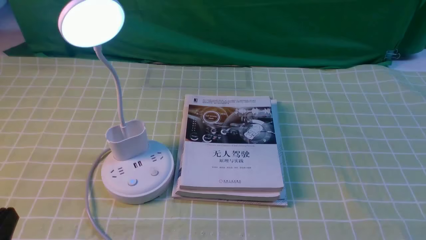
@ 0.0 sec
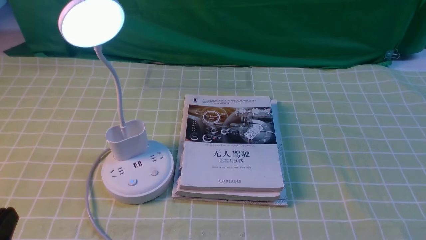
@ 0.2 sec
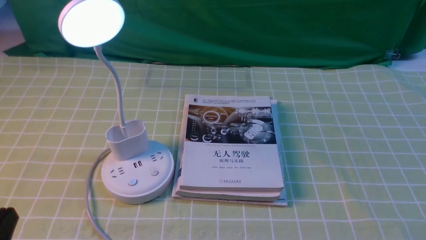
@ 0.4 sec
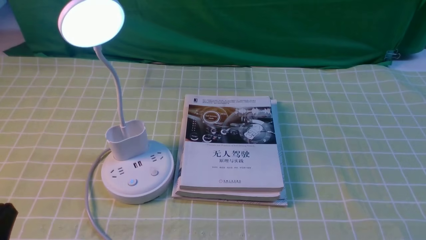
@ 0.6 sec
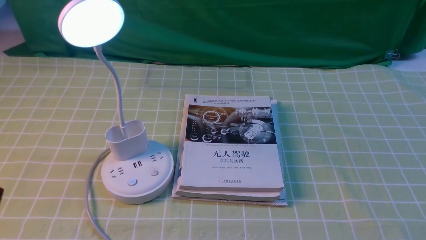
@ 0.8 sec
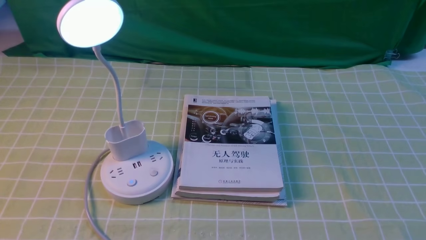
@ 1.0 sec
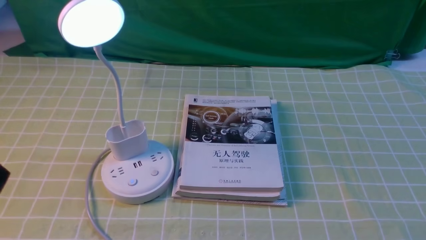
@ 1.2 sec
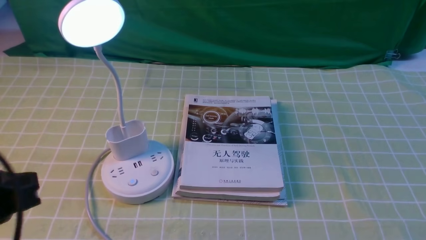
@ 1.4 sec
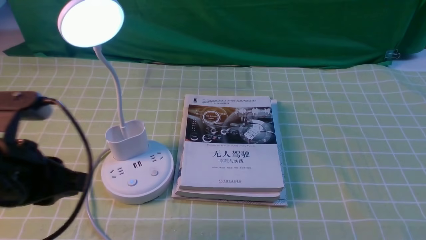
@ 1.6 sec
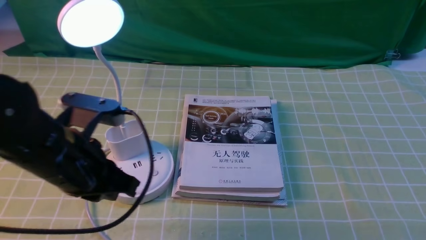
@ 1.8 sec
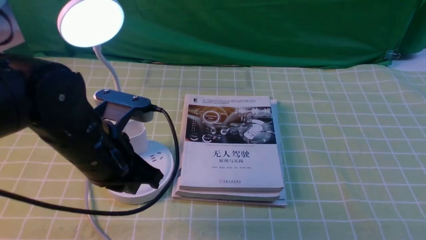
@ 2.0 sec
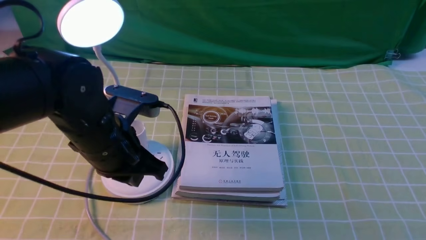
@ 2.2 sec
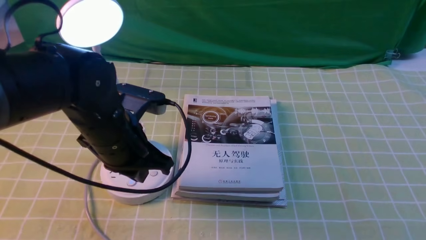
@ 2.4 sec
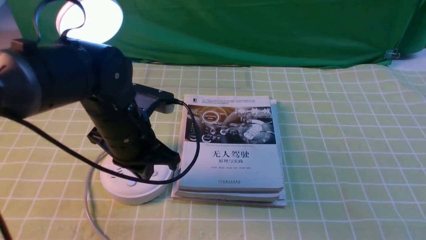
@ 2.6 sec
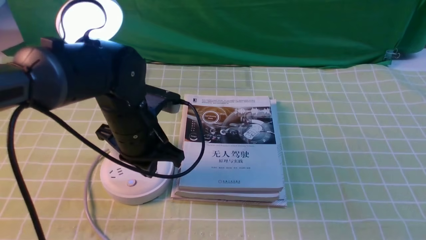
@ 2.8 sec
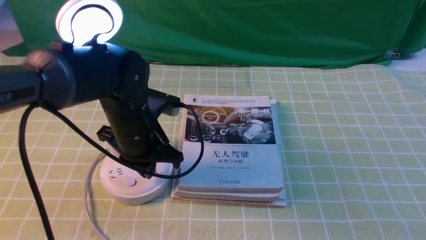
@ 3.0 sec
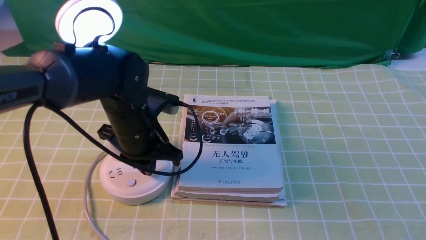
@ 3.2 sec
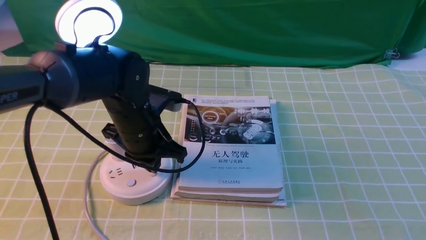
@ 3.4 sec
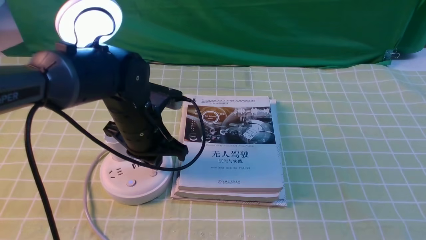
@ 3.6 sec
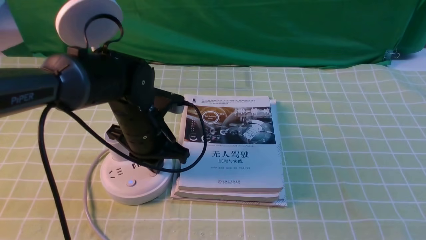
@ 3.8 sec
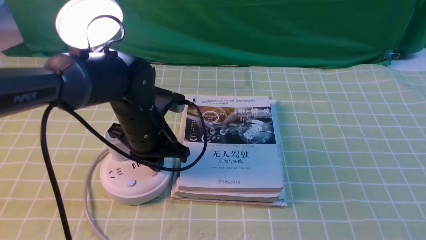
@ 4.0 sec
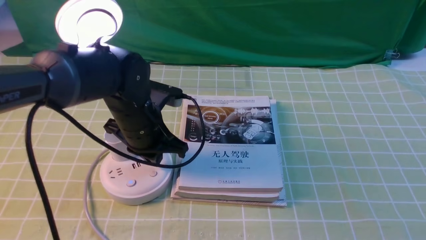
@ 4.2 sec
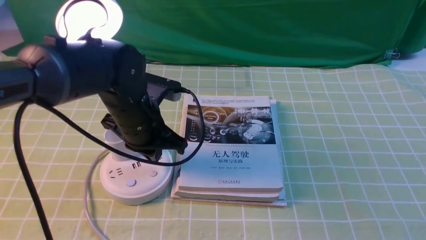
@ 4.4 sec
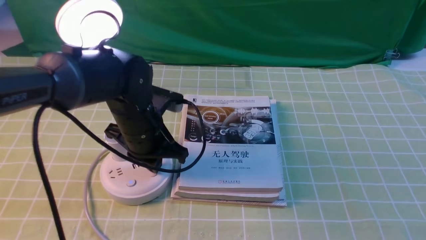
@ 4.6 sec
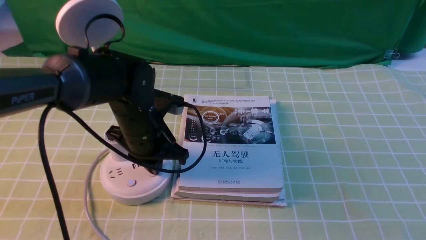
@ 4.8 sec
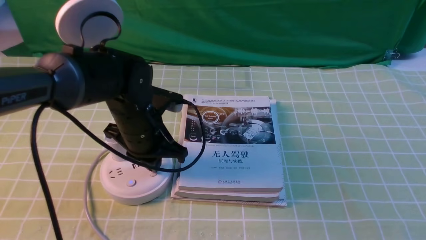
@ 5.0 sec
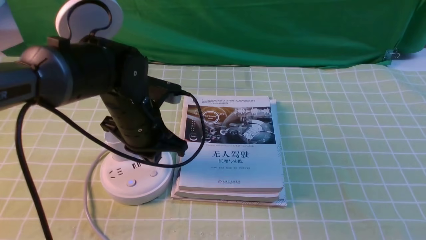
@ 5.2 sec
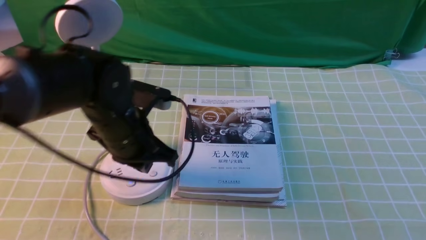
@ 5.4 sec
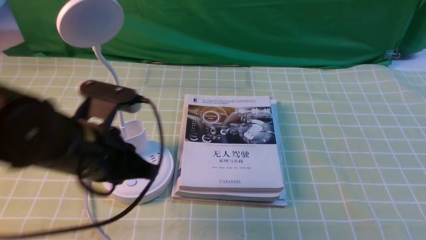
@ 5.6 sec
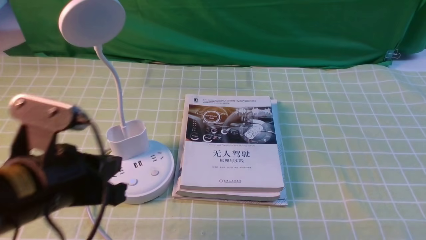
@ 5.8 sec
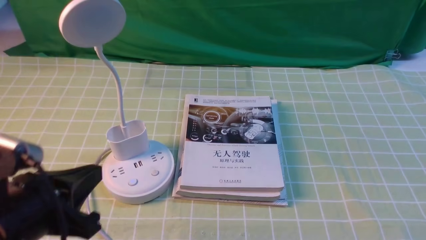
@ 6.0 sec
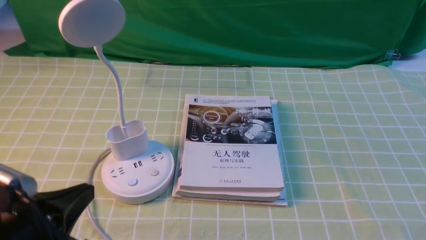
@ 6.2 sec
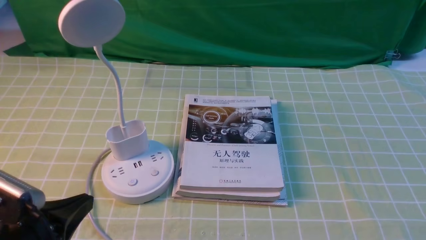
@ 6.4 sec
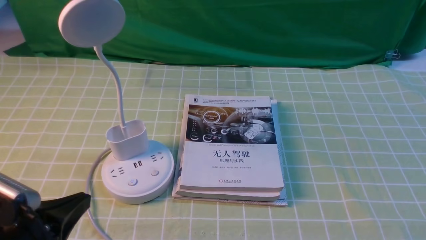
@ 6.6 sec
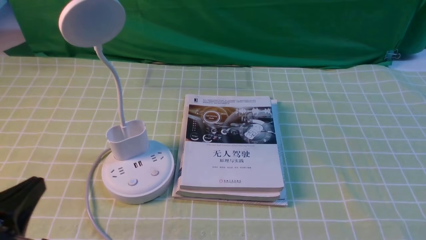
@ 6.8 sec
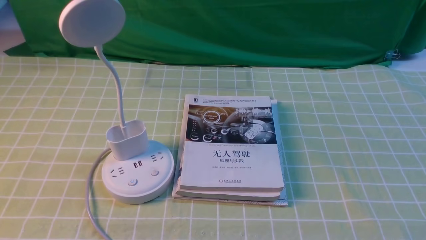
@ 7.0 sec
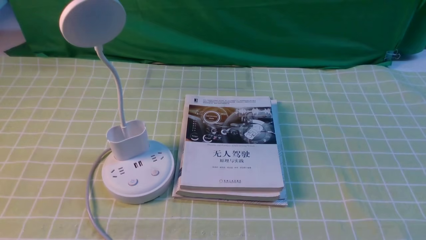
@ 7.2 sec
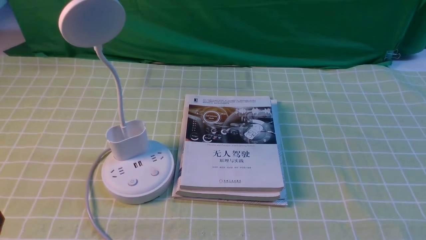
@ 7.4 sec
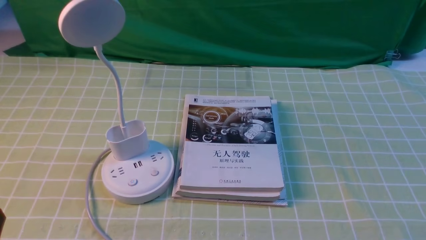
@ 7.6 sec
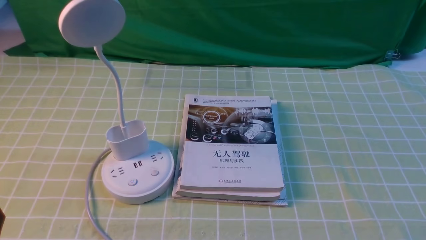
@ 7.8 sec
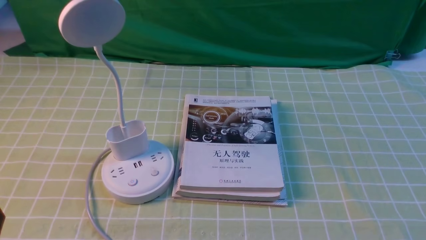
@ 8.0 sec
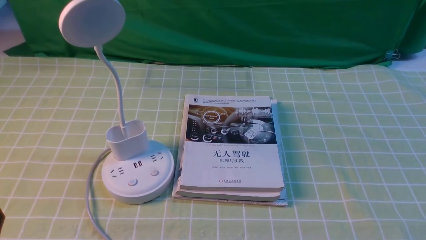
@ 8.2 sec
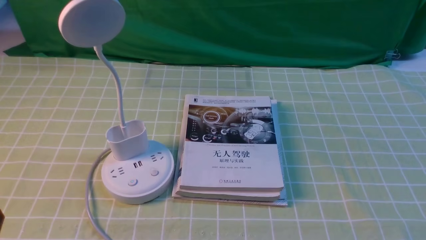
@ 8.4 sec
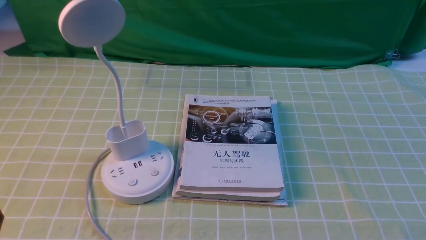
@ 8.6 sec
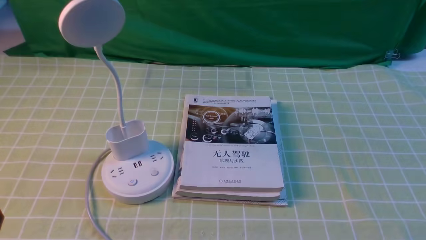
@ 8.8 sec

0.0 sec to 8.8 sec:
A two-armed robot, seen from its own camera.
Task of the whole recording: turn off the desk lamp on the green coffee tablecloth by hand.
Step, 0.0 sec to 5.4 sec: use the left arm to press the button switch on the lamp holder.
1.4 sec to 3.0 sec: The left gripper goes about 25 cm forward and to the right, and closes.
3.0 sec to 4.4 sec: The grippers stay close to where they were, moving slightly.
4.4 sec to 5.8 sec: The left gripper goes roughly 15 cm backward and to the left.
5.8 sec to 7.4 sec: The left gripper shifts approximately 20 cm backward, to the left and downward.
7.4 sec to 8.8 sec: Both grippers stay put.

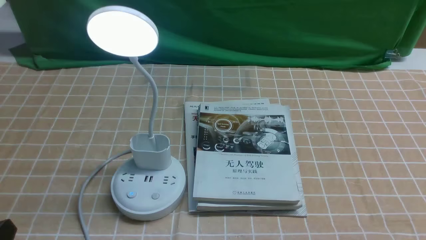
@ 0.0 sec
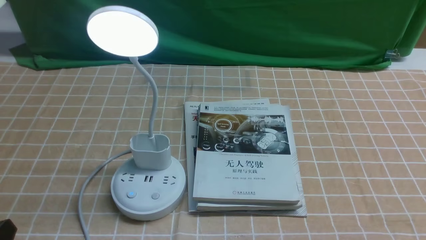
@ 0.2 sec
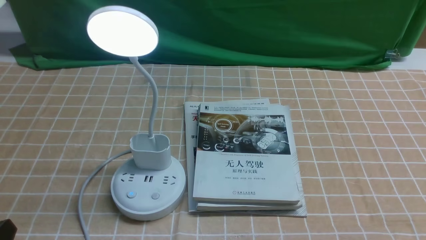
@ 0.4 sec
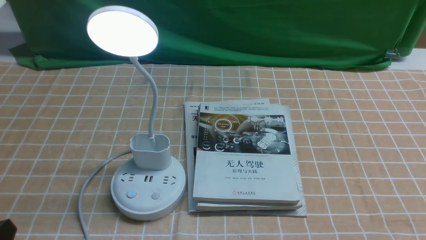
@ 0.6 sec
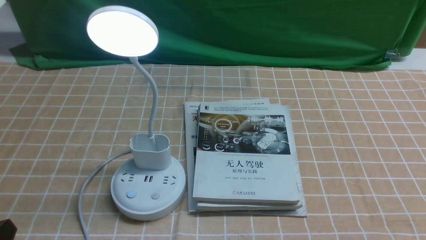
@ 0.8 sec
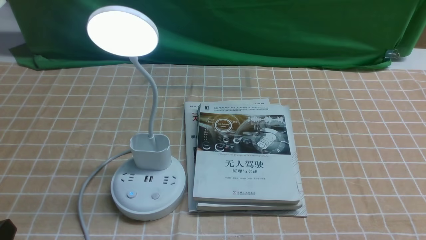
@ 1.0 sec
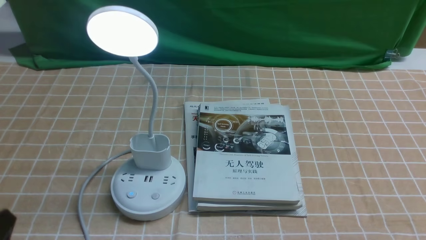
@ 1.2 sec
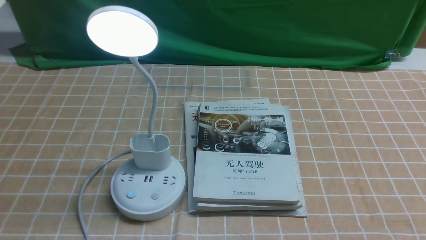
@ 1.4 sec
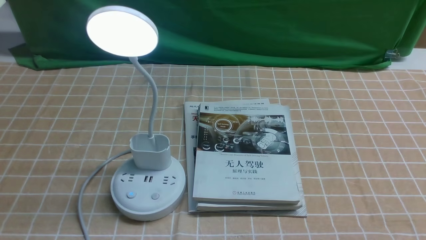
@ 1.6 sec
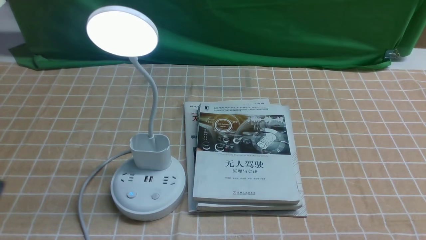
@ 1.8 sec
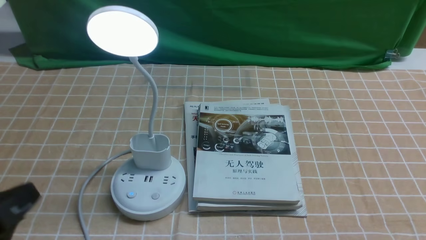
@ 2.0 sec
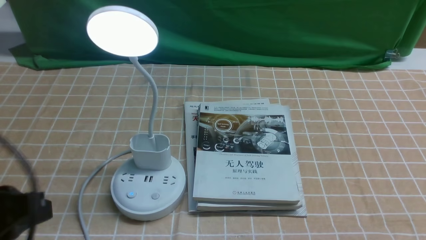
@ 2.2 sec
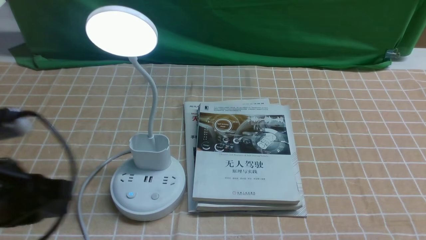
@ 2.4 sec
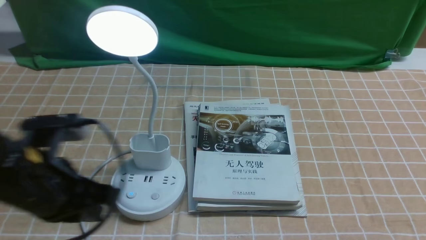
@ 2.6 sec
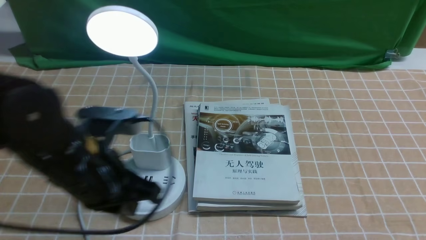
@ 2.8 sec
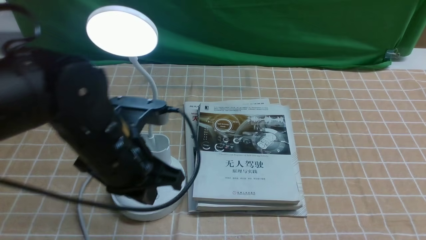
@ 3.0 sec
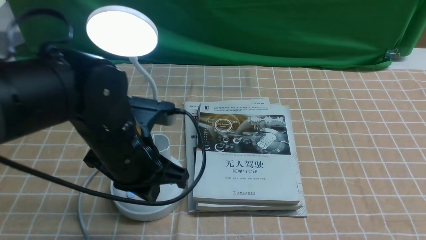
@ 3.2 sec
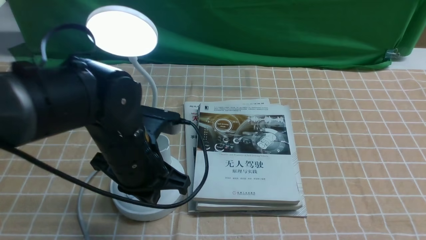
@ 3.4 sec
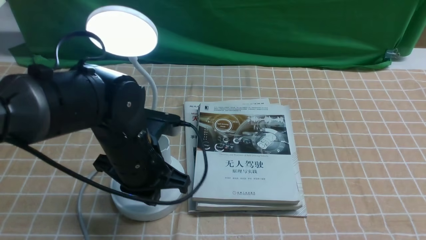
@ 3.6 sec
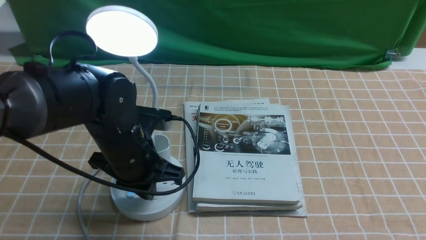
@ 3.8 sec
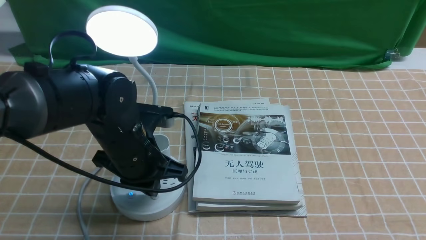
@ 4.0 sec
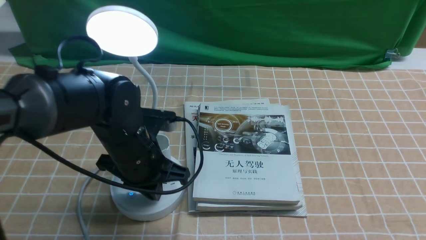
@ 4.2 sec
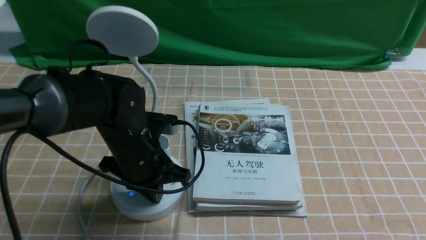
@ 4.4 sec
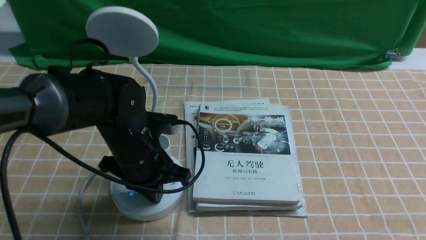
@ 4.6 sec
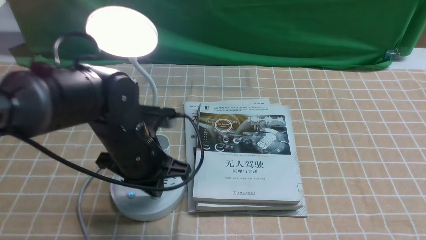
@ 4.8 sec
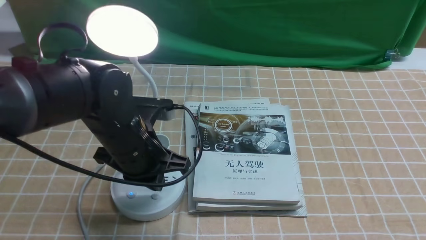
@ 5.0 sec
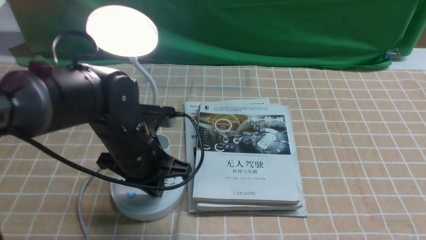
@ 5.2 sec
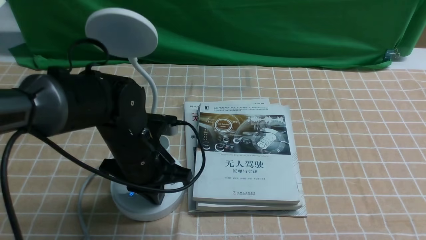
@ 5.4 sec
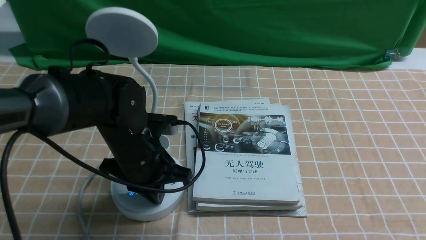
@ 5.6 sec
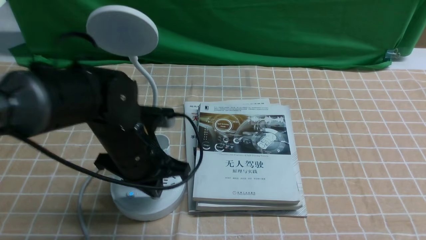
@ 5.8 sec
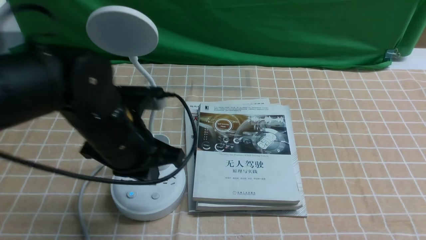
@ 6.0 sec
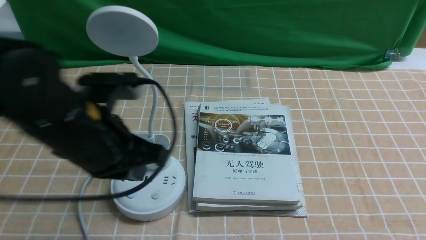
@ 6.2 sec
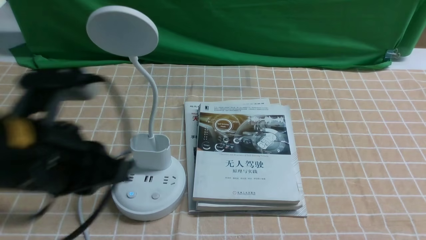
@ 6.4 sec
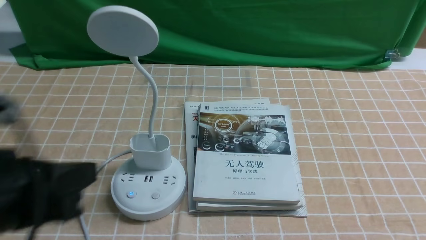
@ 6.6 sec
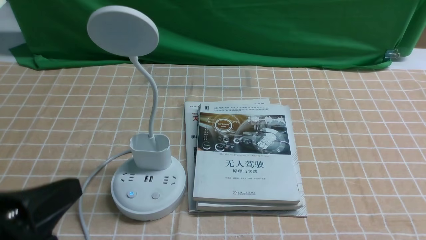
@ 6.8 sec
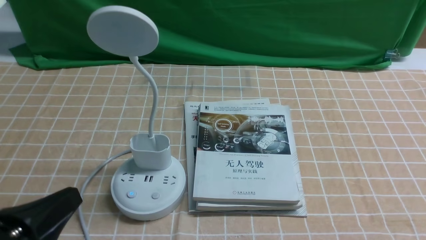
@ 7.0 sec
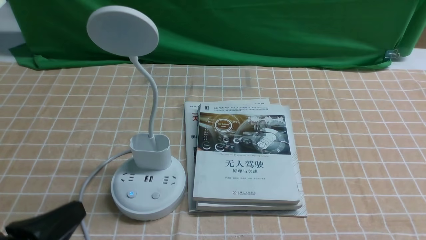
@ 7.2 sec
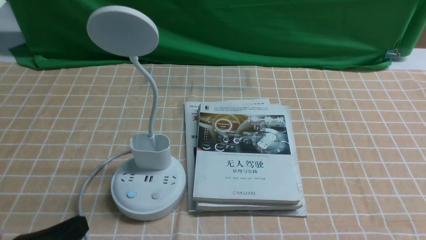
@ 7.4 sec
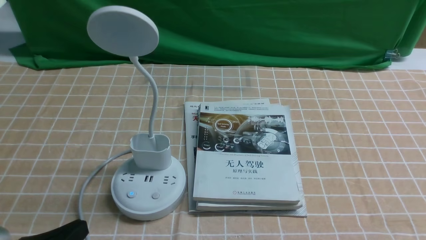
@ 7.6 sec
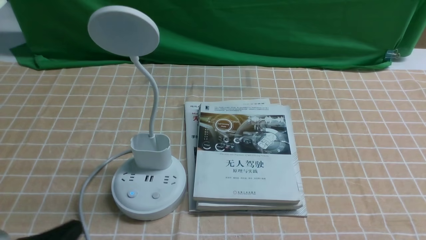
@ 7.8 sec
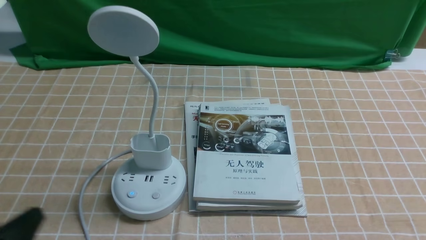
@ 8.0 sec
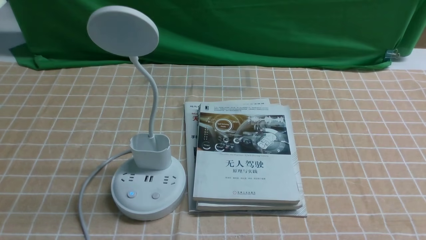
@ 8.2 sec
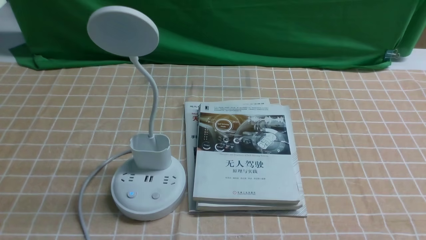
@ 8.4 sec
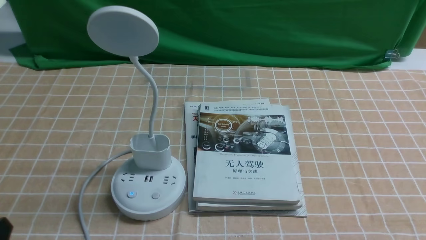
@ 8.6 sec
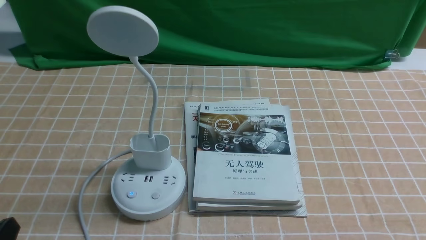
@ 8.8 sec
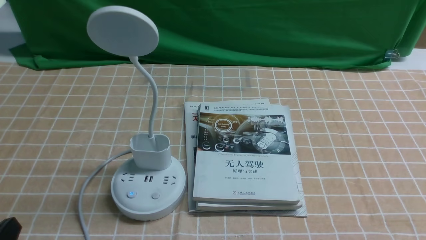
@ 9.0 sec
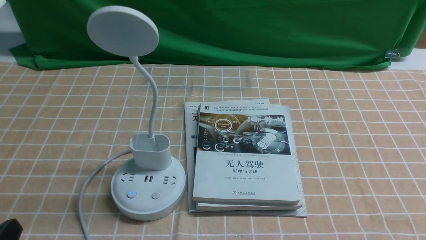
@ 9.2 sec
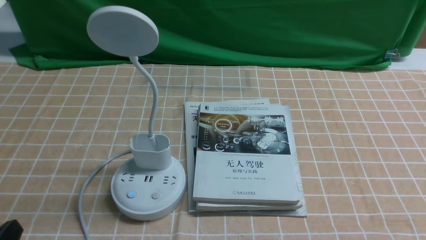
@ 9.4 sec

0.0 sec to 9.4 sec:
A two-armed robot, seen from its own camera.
Task of the whole recording: turn off the desk lamp on the light coffee tablecloth by hand.
Step, 0.0 sec to 5.8 sec: use the left arm to press the button switch on the lamp holder.
1.6 sec to 3.2 sec: The left gripper heads forward and to the right, covering approximately 25 cm.
3.2 sec to 4.8 sec: The left gripper changes place by about 5 cm.
4.8 sec to 6.2 sec: The left gripper moves upward and backward, some 10 cm.
6.2 sec to 7.8 sec: The left gripper heads backward, downward and to the left, covering some 20 cm.
